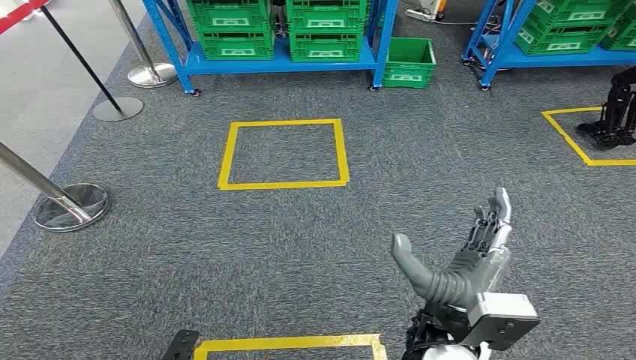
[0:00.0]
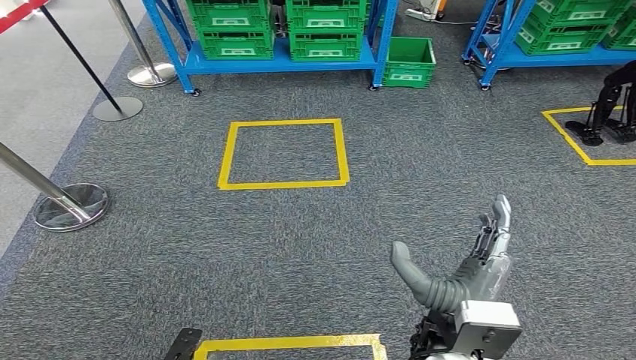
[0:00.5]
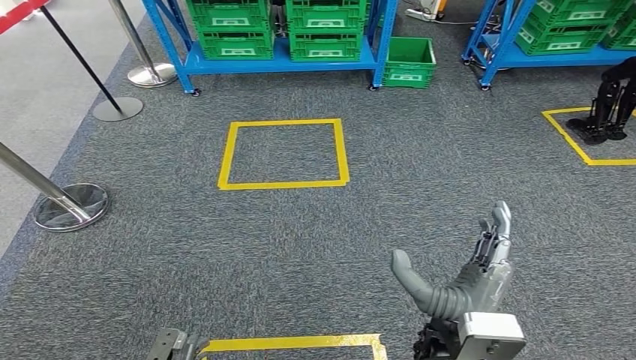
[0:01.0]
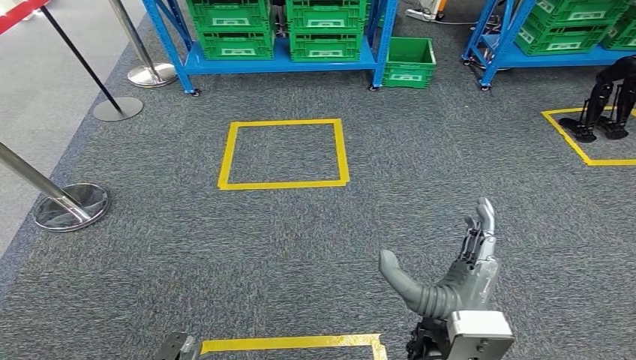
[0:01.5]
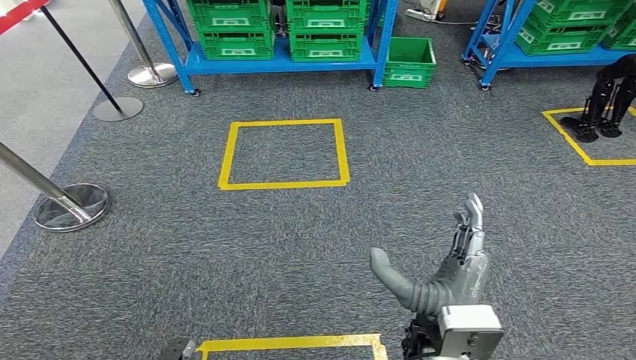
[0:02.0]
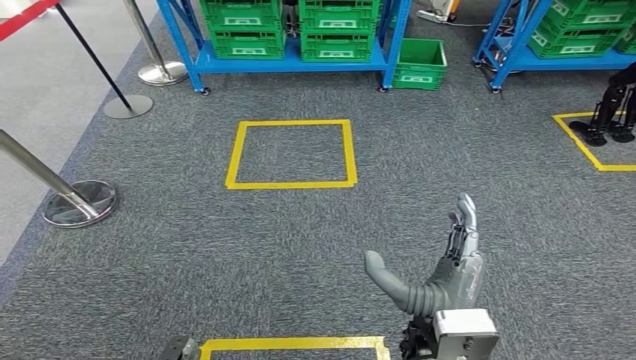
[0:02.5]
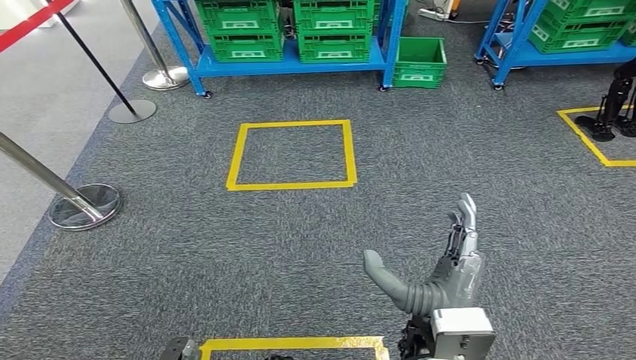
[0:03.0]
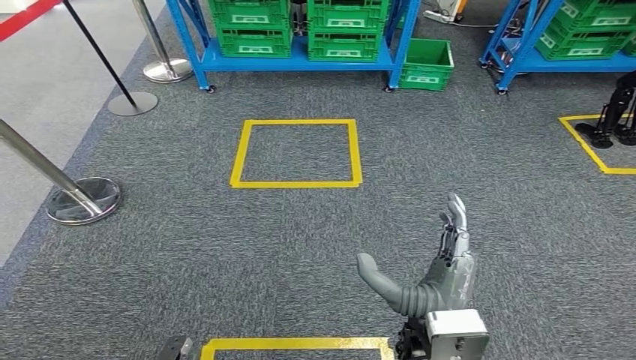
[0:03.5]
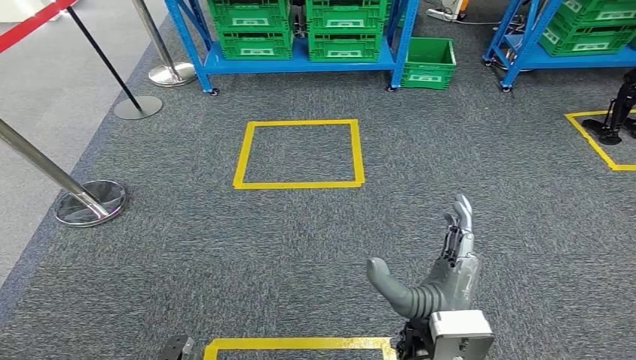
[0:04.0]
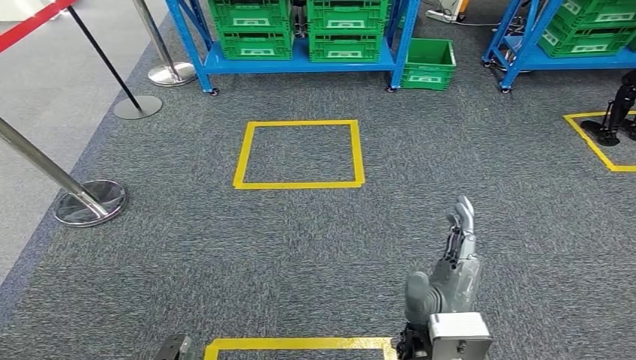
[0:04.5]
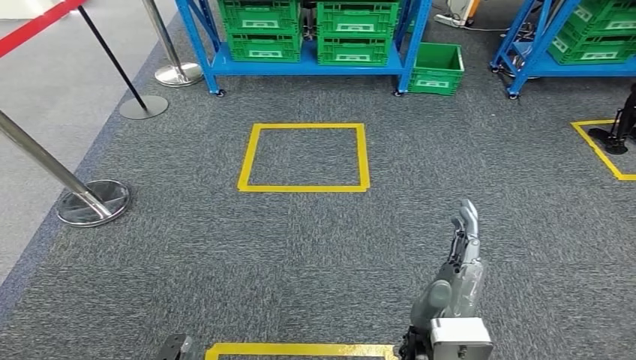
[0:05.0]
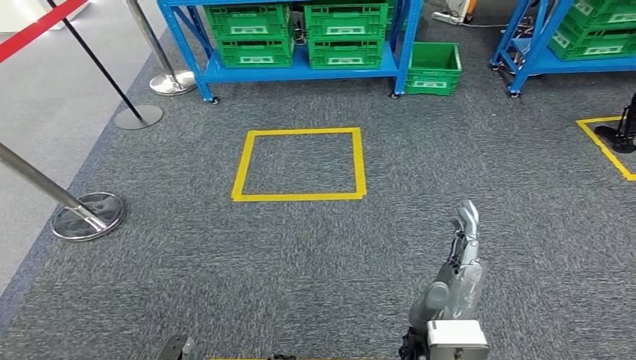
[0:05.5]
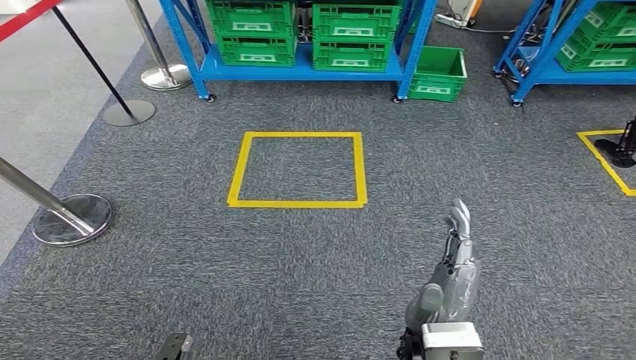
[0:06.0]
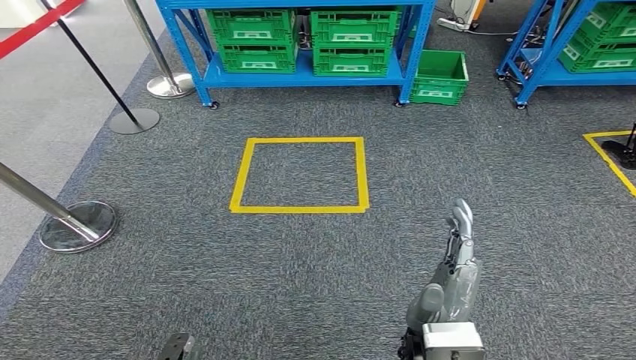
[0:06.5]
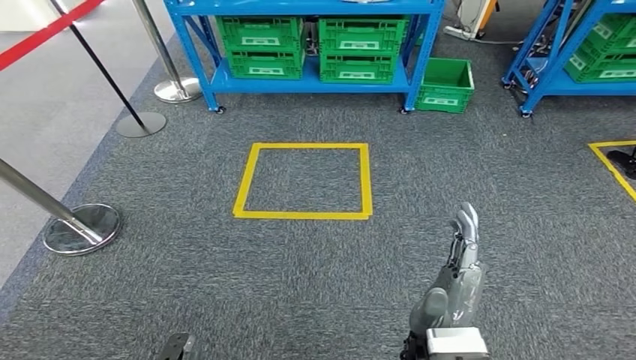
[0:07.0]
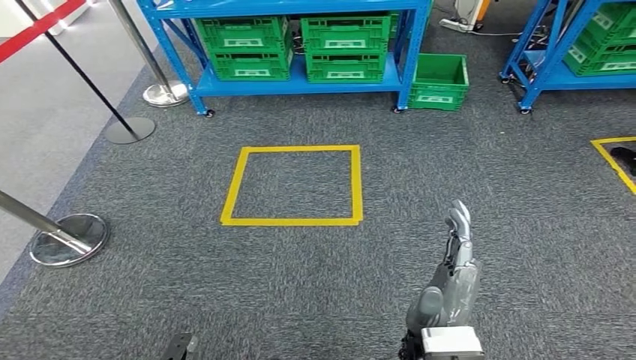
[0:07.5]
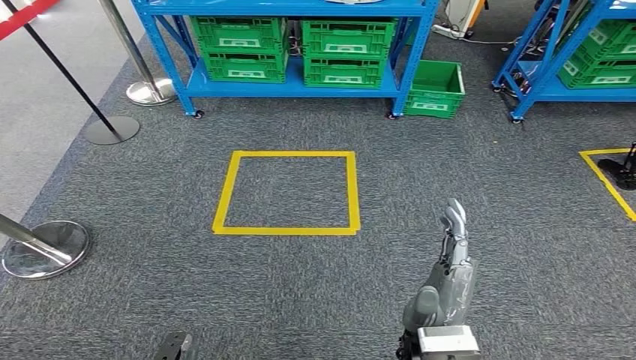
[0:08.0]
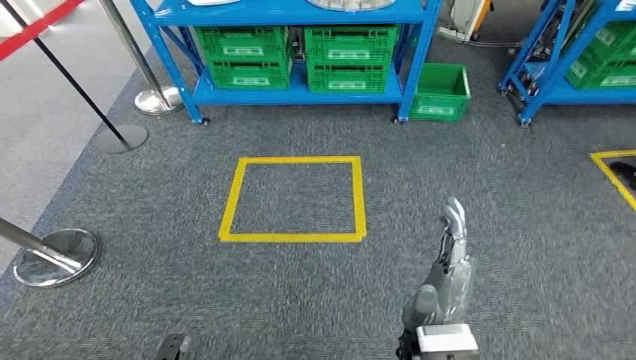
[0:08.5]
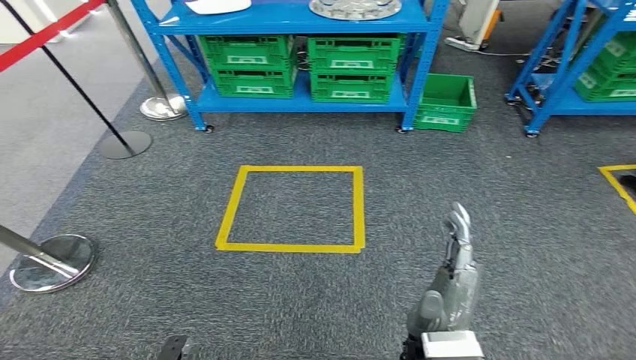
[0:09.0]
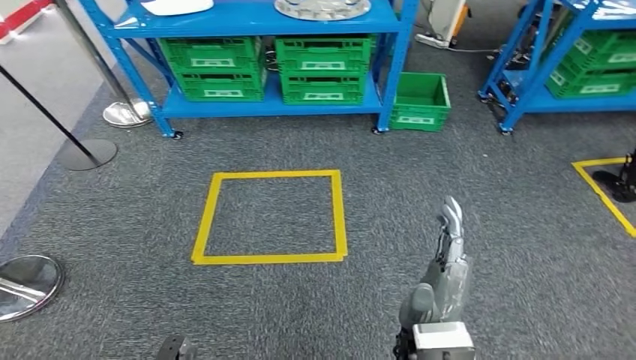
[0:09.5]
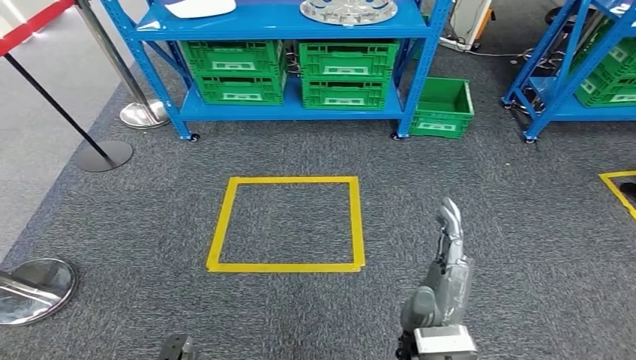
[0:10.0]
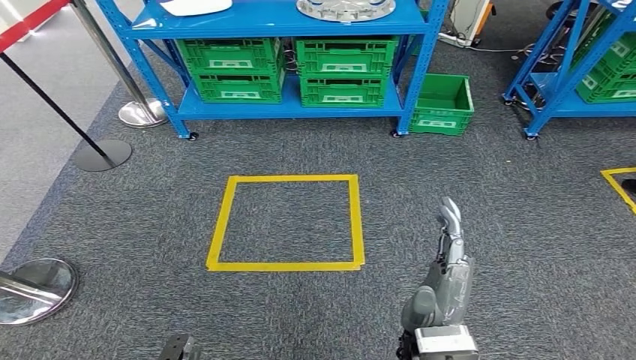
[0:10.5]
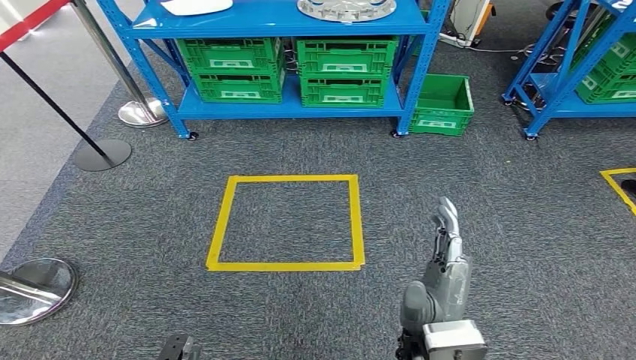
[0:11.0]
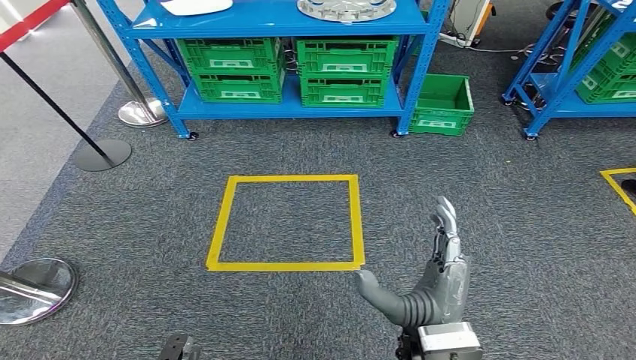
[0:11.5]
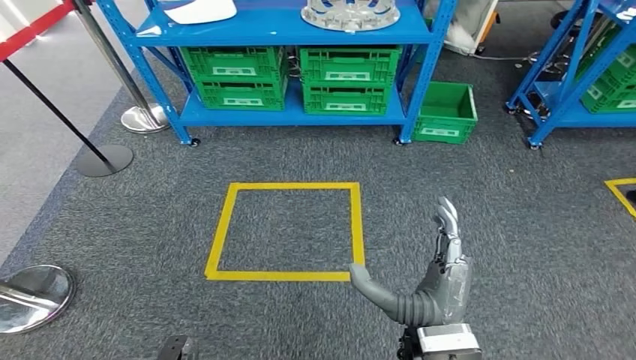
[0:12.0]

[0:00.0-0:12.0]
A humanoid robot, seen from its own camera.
0:10.0 to 0:12.0: The hands move only a little.

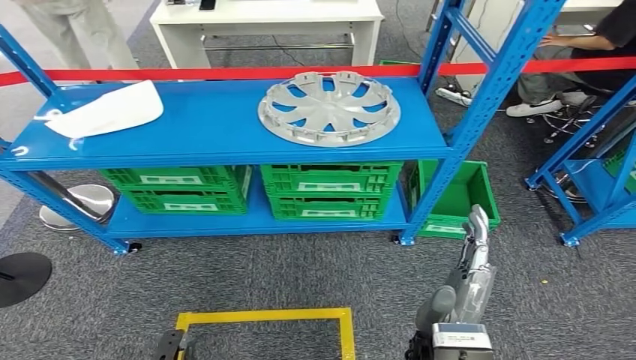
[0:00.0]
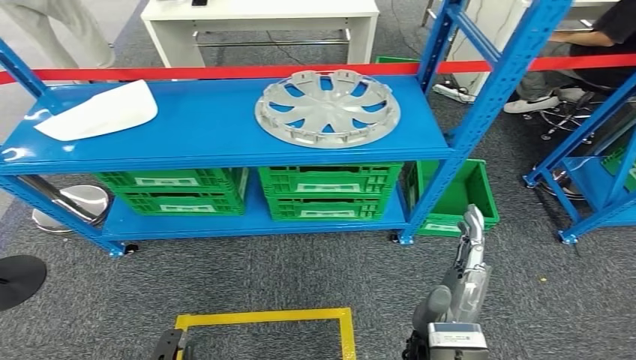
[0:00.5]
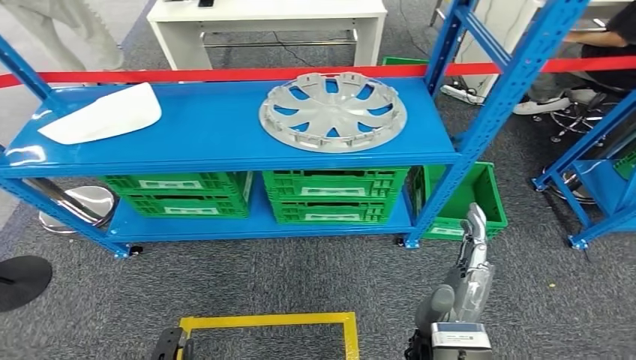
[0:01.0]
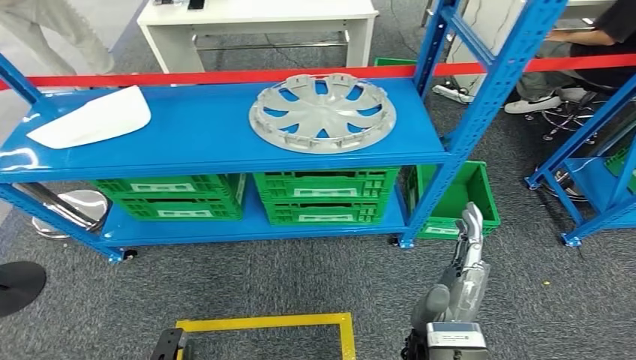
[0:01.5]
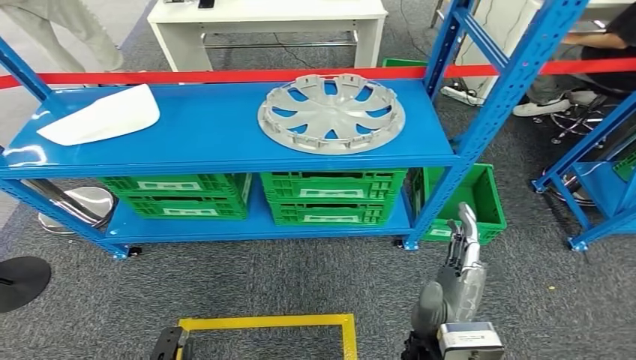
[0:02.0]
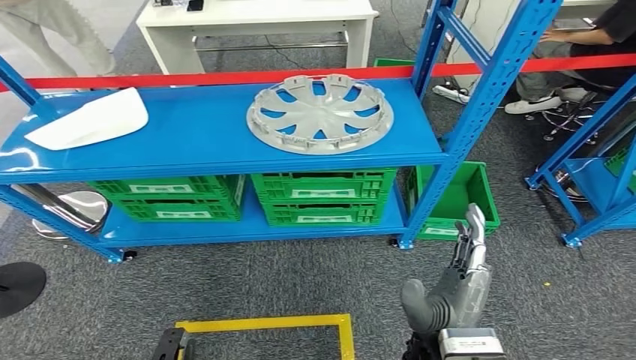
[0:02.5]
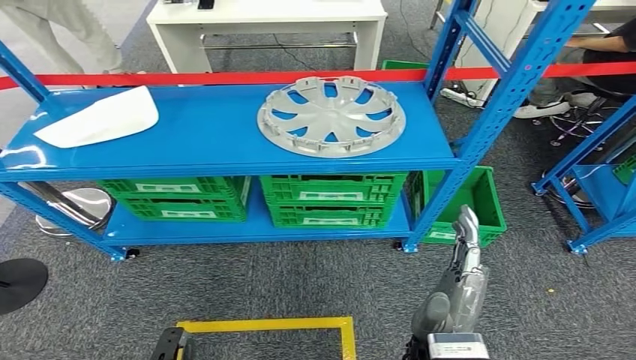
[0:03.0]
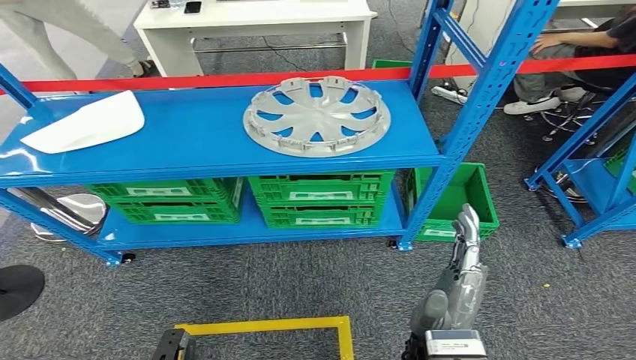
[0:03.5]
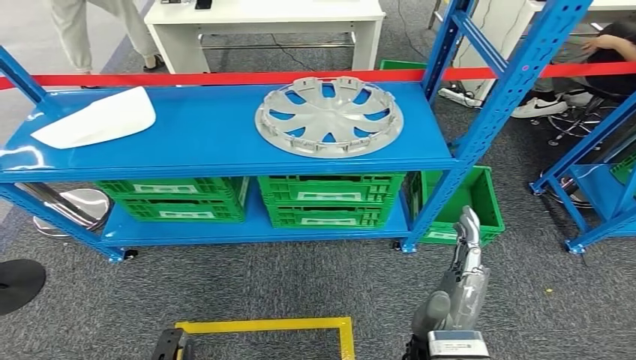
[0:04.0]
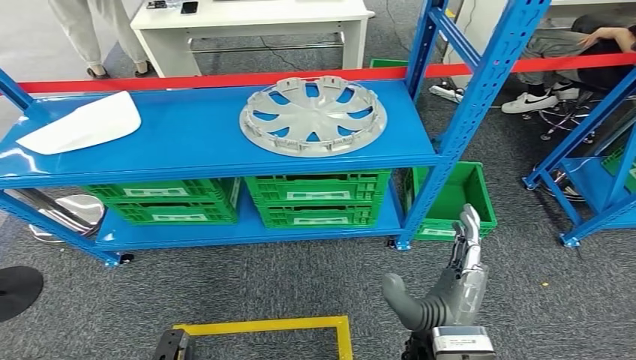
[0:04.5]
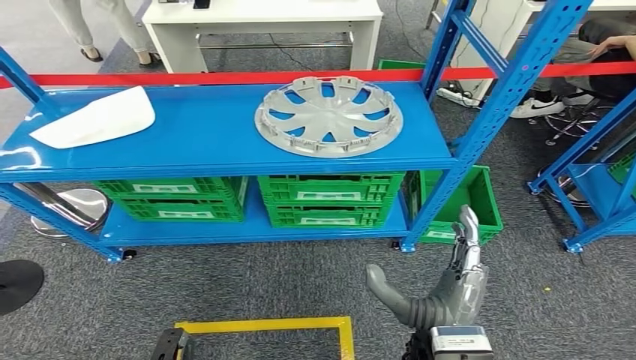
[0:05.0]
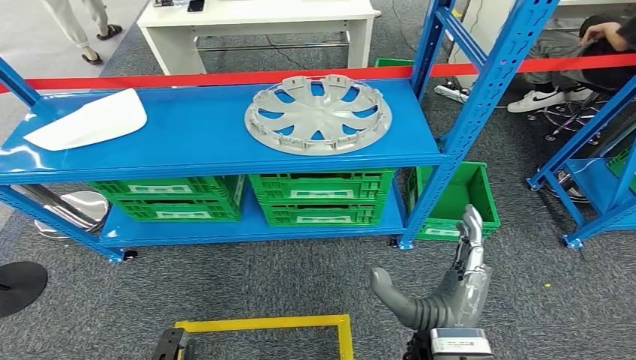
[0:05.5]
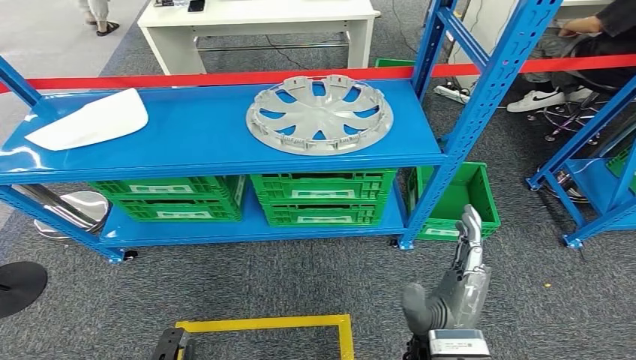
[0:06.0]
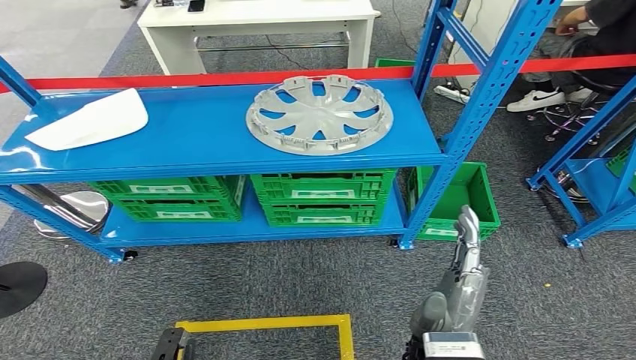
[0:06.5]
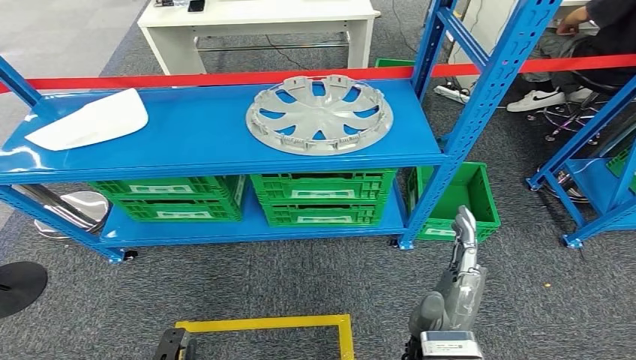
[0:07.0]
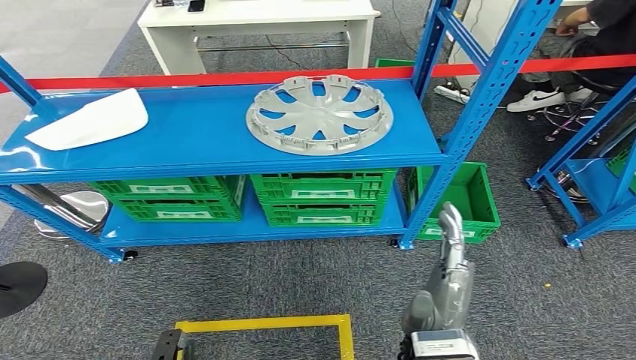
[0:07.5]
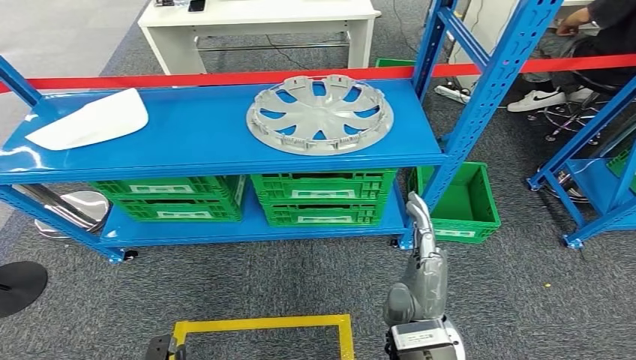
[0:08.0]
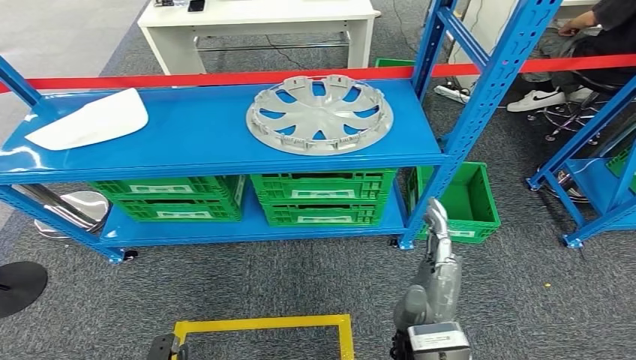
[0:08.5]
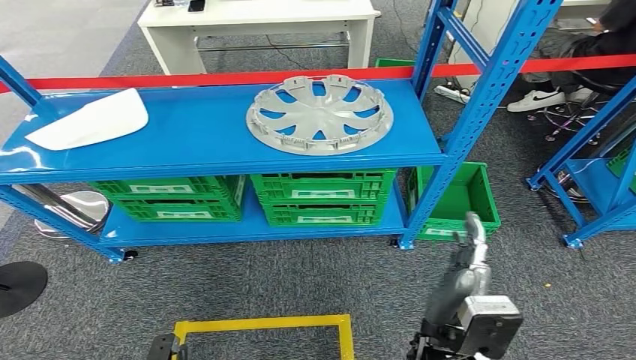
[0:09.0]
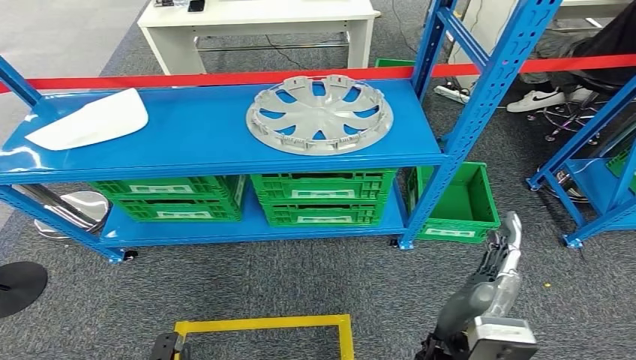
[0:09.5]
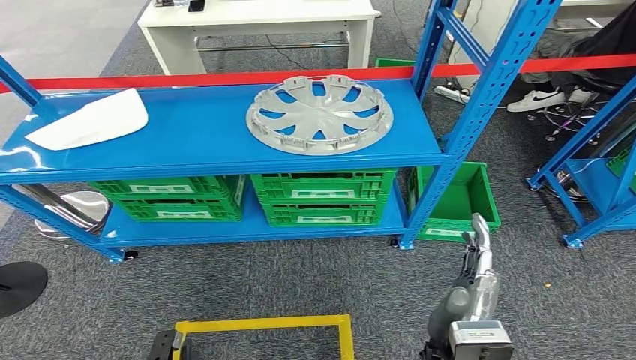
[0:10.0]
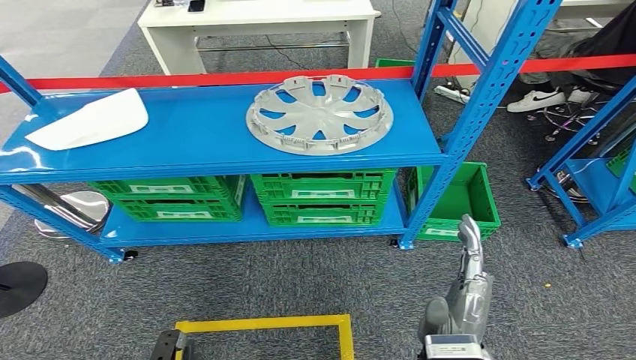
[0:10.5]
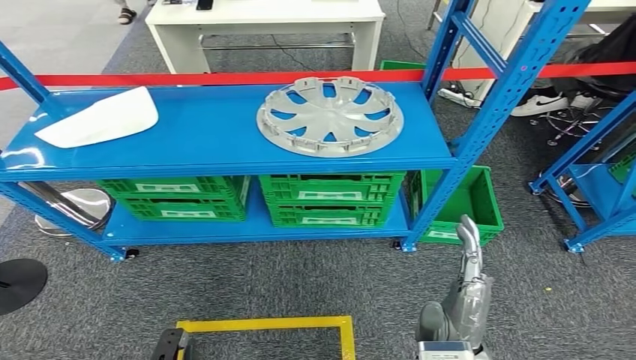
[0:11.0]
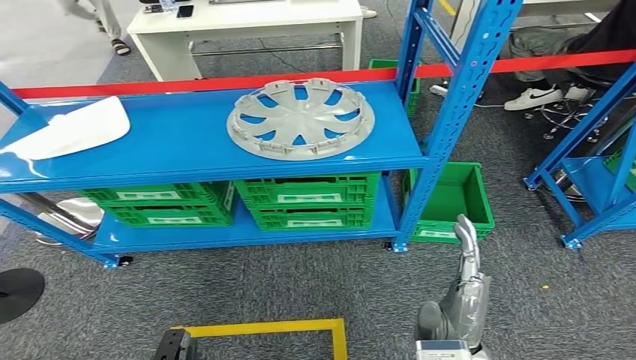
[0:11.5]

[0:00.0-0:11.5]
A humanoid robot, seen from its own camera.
0:02.0 to 0:04.0: The hands stay close to where they were, moving slightly.
0:06.0 to 0:07.5: There are only small adjustments of the hands.
